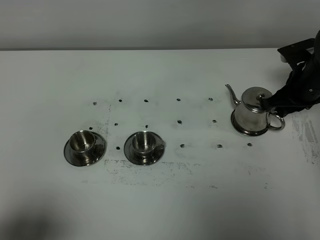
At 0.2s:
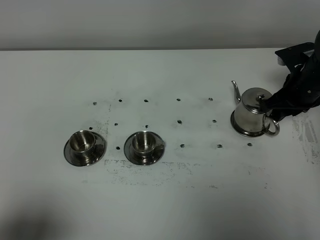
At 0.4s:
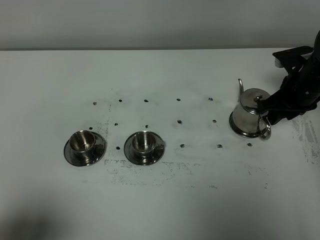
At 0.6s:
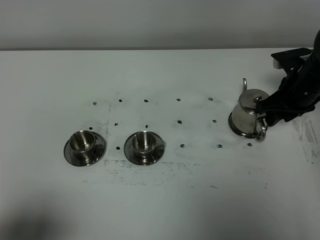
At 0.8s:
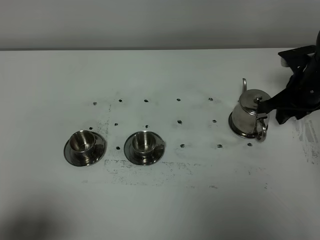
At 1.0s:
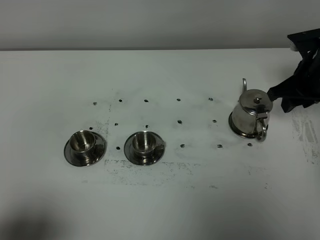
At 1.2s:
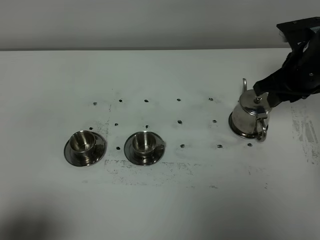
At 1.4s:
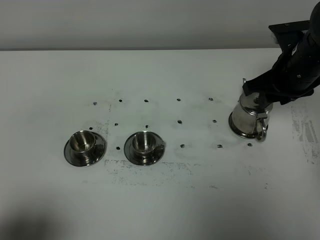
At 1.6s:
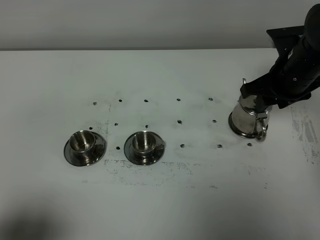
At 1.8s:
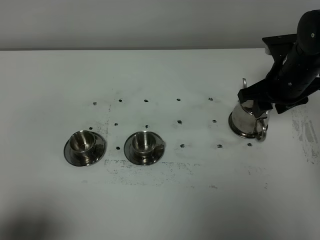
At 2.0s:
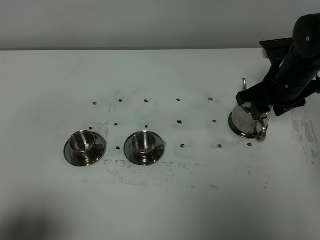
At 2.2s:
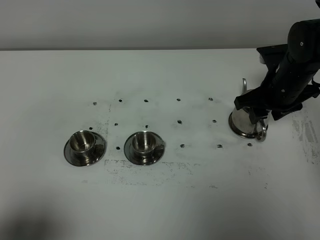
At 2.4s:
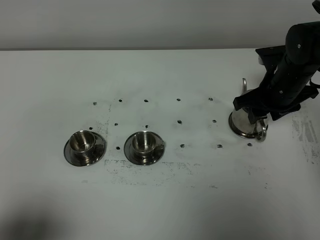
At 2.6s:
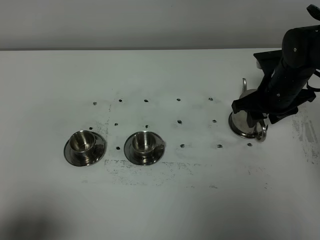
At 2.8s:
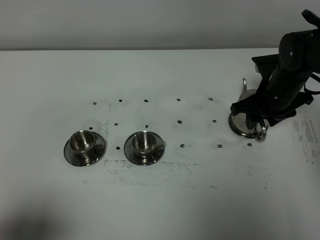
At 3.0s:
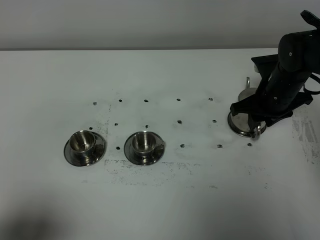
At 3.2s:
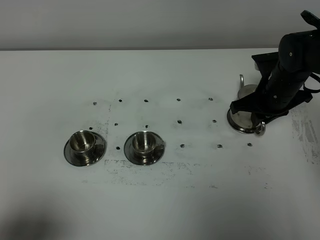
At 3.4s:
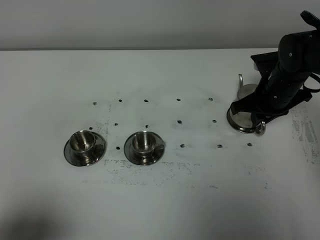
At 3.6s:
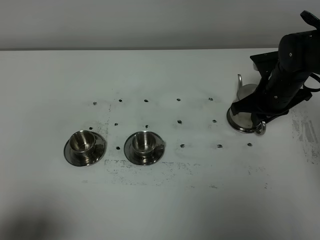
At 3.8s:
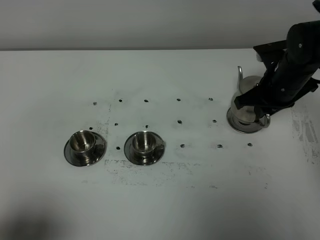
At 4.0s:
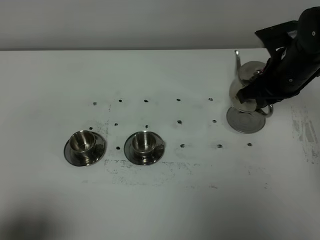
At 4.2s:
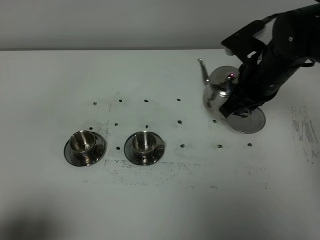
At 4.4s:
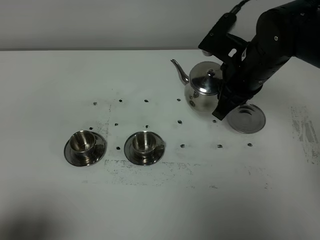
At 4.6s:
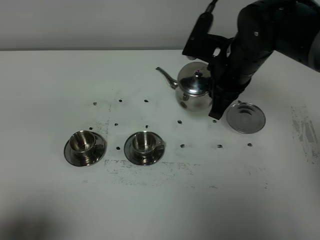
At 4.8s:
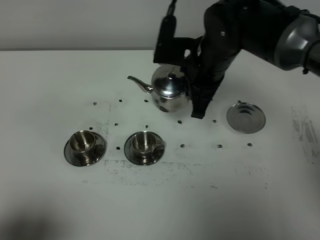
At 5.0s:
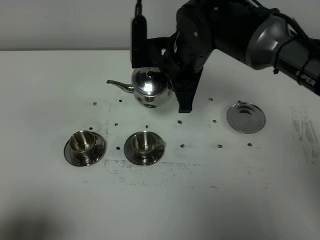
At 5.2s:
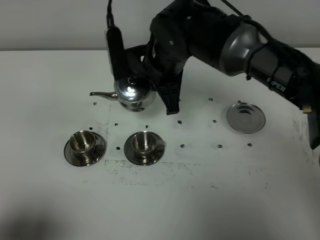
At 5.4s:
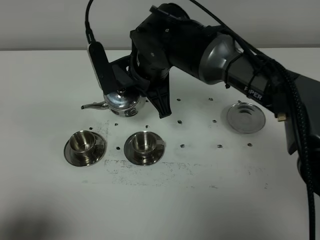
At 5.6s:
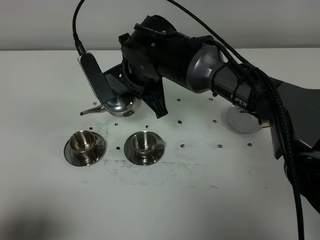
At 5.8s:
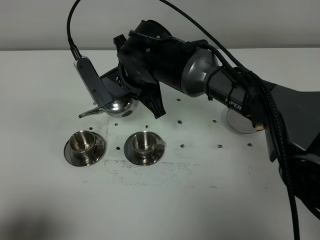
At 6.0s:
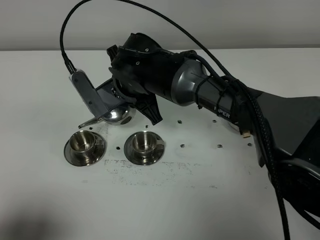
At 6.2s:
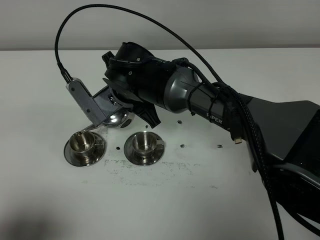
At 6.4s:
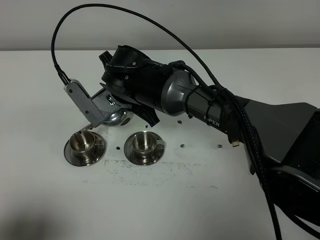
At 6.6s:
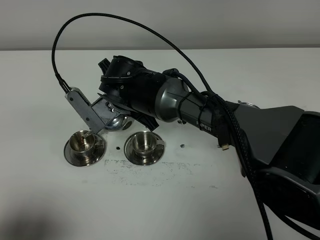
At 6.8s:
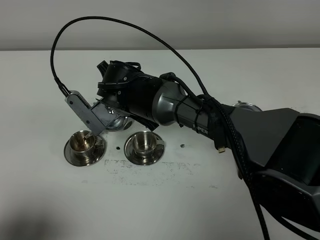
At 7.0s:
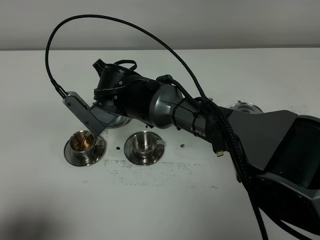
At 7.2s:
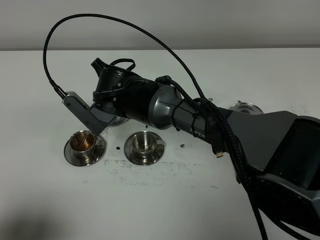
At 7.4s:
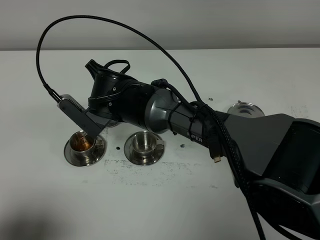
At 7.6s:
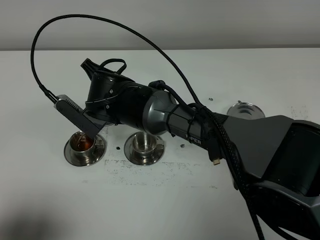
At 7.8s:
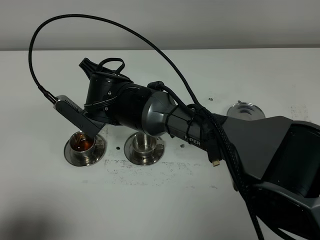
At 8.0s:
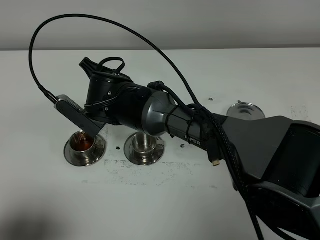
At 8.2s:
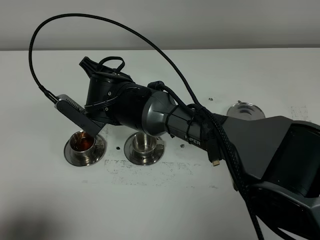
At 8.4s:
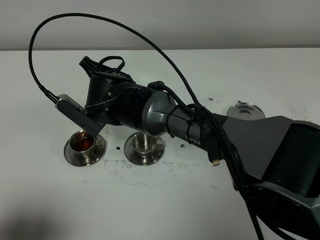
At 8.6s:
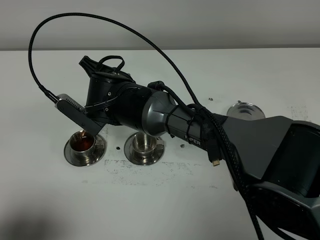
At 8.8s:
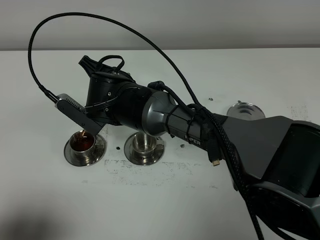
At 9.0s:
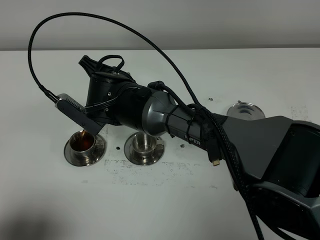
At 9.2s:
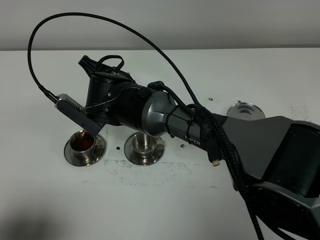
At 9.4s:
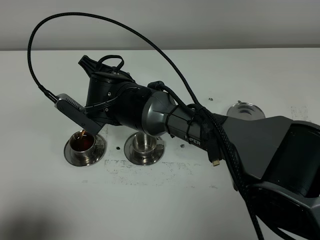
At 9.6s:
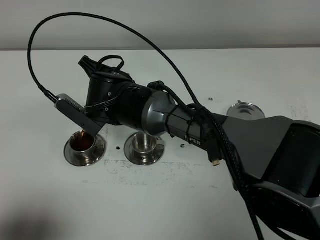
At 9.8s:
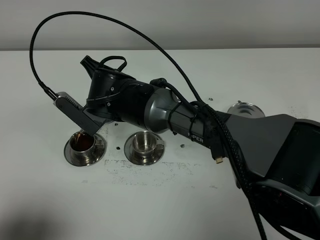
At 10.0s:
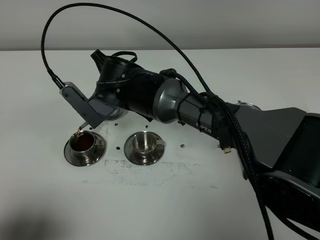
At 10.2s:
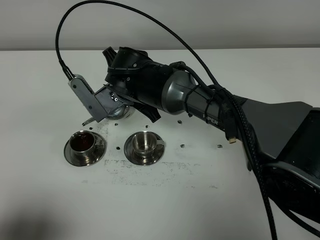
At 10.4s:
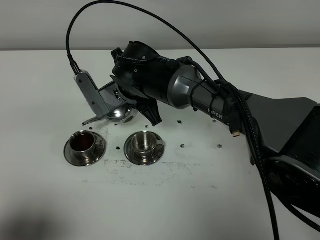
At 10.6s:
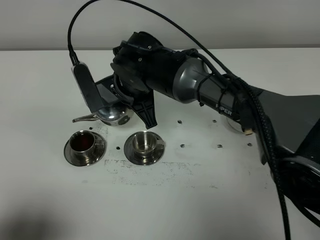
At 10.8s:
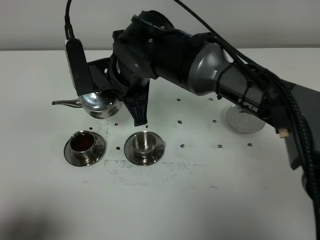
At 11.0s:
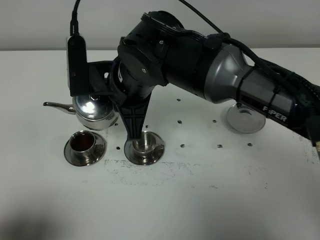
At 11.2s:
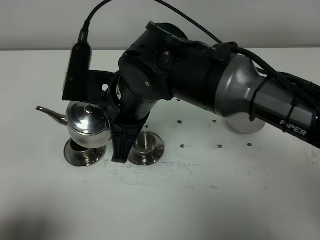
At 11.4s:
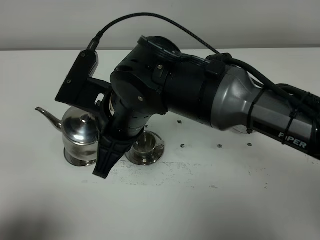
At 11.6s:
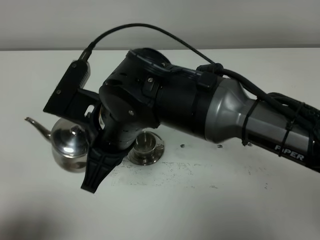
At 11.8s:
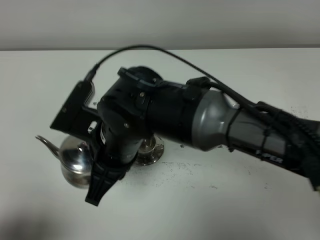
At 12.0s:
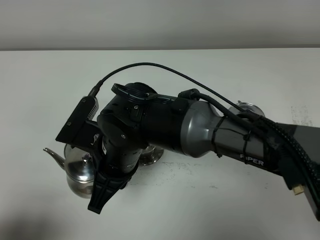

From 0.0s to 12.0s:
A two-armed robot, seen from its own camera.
Task of the whole recording: grasp the stainless steel teapot and pour the tea into the two stainless steel teacups one by one, put the stainless steel teapot back in its original place.
Step, from 0.0s to 3.6s: Pick up the teapot with the right gripper.
Step, from 3.8s to 10.2s: Pour tea into the teacup with the right gripper.
From 0.0s to 1.6s: The right gripper heads upward and to the left, covering some 10 cm.
From 1.6s to 3.0s: The right gripper is displaced downward by roughly 5 cm.
From 3.0s to 4.4s: The right gripper heads upward and to the left, covering about 10 cm, and closes its fingers.
From 4.4s to 6.0s: The right gripper moves to the left, some 20 cm.
From 7.6s to 9.0s: Both grippers stay about where they are.
From 10.4s to 12.0s: The right gripper goes some 15 cm backward.

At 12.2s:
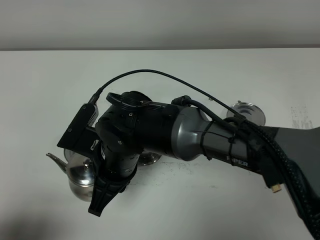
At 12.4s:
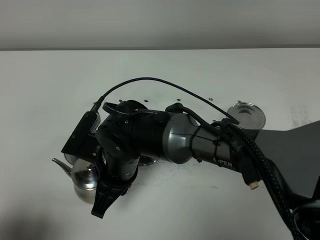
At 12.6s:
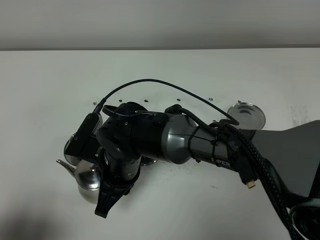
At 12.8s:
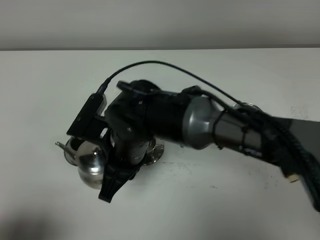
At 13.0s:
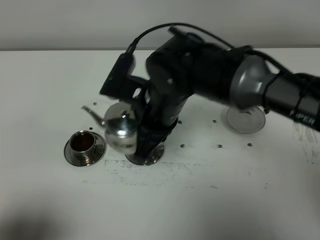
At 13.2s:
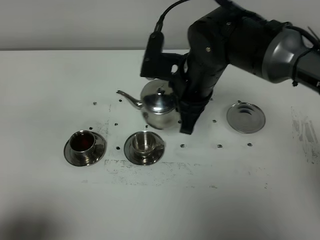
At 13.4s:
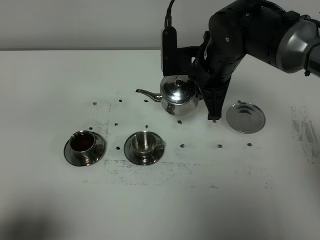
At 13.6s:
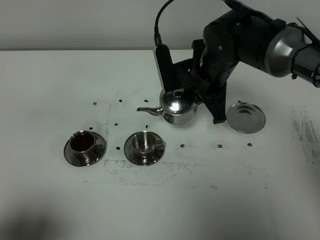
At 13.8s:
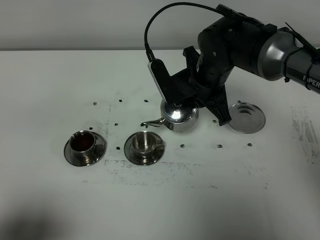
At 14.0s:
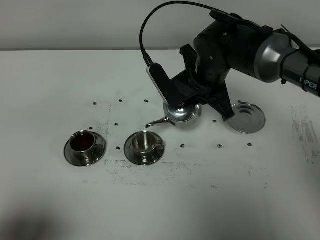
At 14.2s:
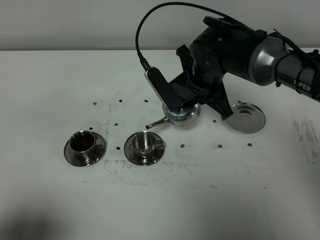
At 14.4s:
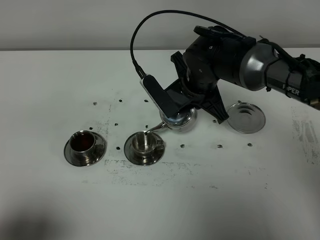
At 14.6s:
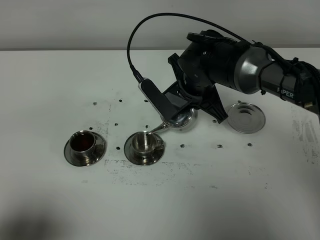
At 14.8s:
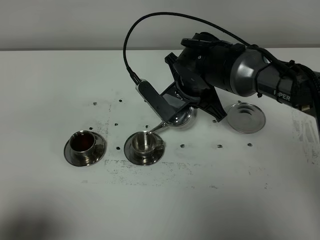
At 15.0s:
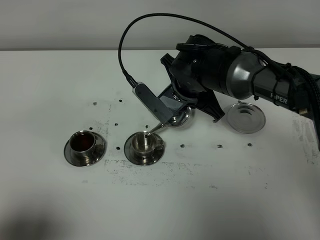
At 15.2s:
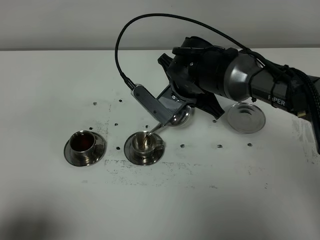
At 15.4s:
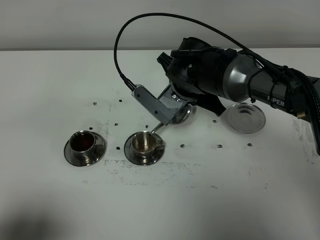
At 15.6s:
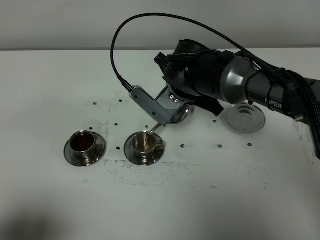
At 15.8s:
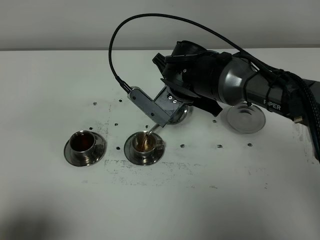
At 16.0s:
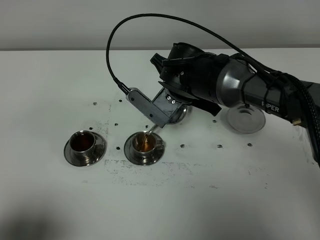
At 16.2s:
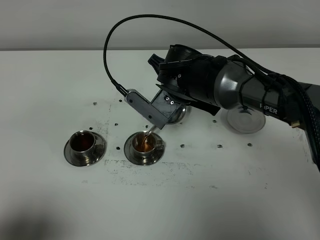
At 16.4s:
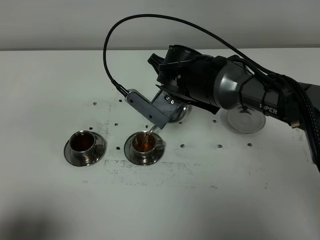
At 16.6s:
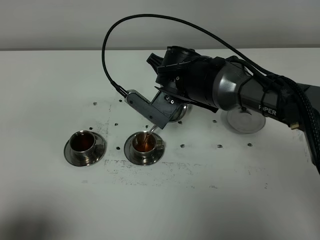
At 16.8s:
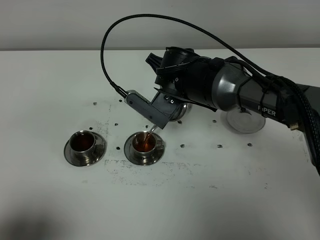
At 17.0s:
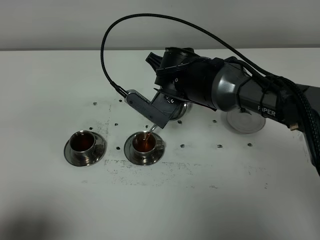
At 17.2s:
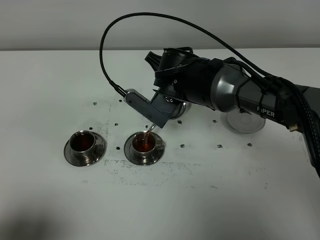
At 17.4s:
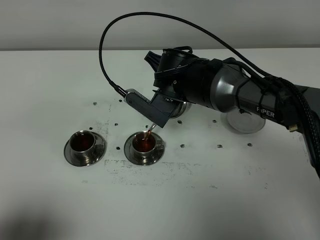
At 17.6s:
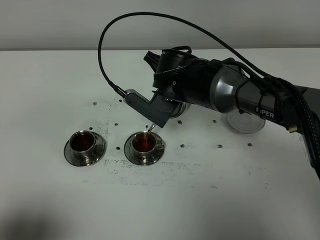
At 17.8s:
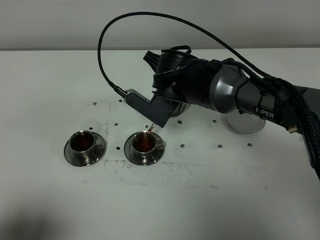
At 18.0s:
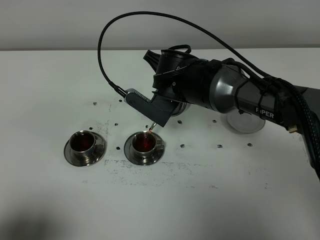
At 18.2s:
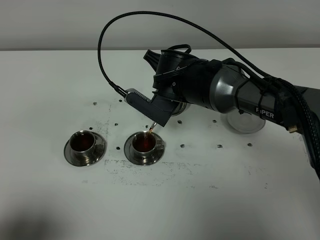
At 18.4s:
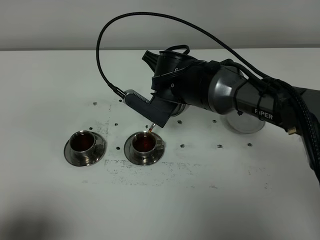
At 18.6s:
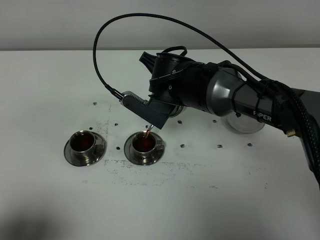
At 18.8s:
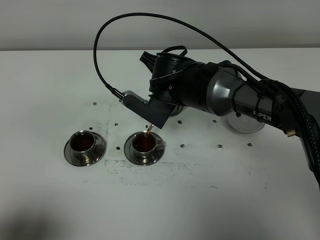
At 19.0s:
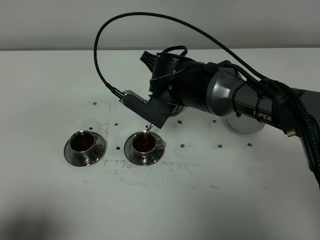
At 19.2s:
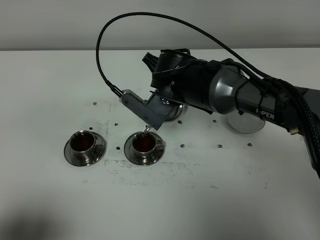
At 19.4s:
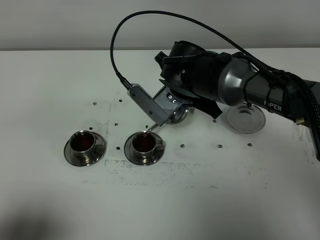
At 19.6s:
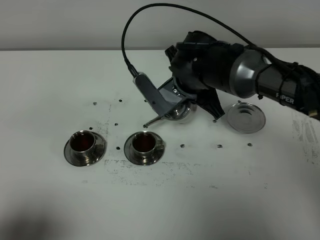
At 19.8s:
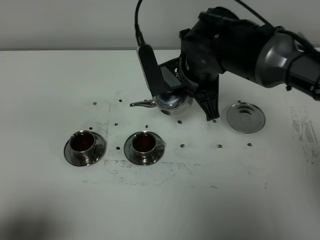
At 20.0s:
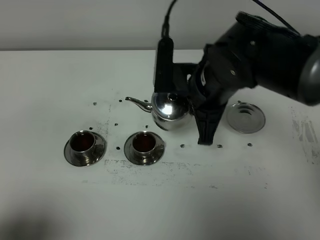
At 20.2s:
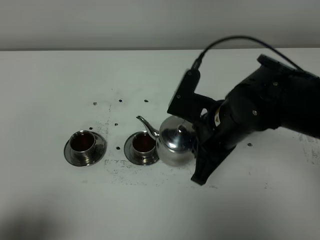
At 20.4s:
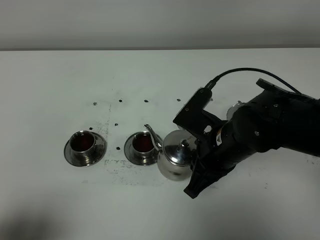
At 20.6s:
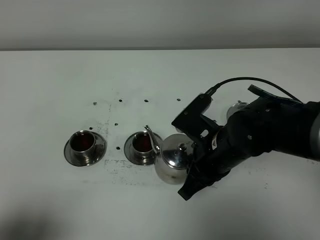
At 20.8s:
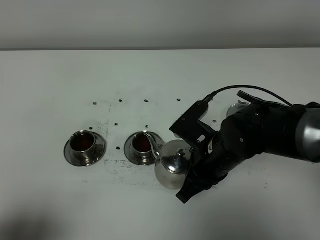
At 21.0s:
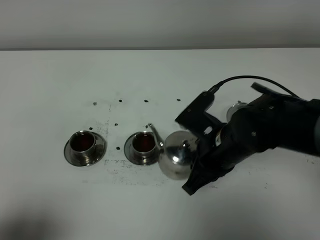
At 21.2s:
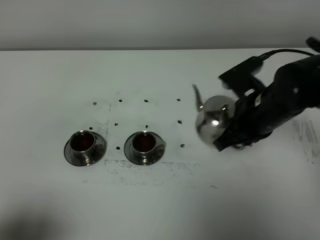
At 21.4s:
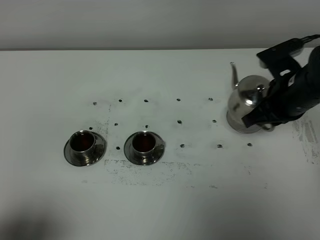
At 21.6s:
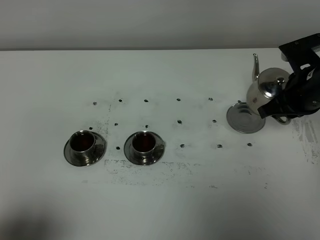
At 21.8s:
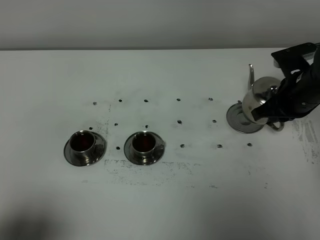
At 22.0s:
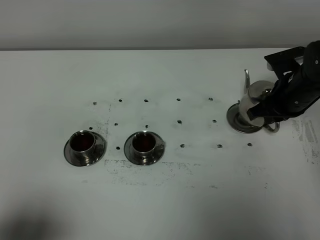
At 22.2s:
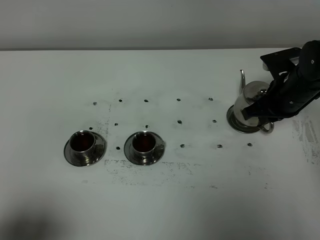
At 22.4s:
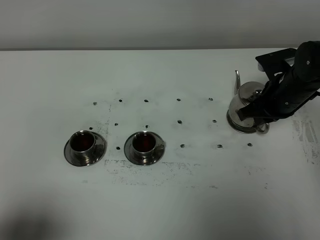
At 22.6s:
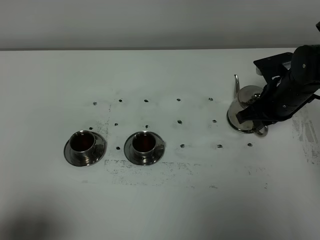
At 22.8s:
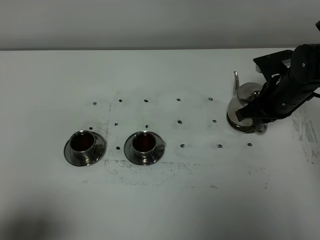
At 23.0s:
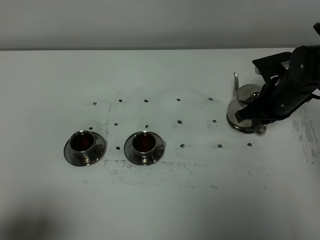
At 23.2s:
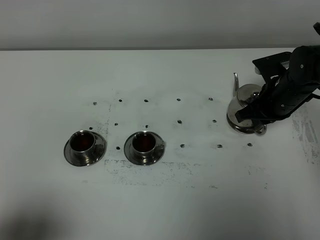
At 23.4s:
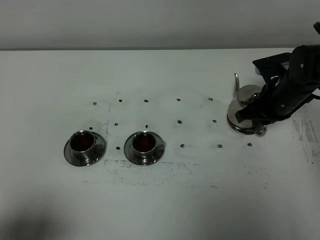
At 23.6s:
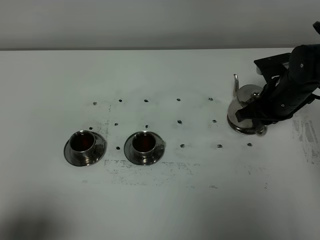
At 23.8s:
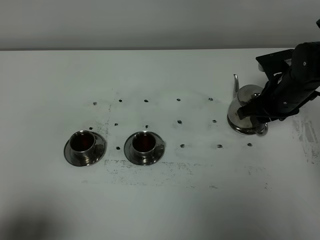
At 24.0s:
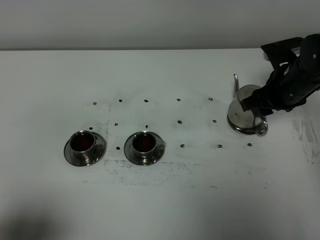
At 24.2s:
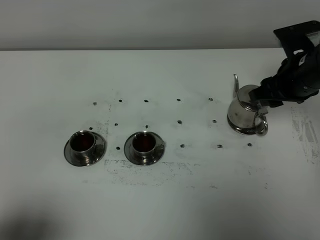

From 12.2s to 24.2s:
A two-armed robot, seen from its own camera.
Task of the whole recording: grasp the stainless steel teapot and pour the tea into the two stainless steel teacups one by one, put the stainless steel teapot back in its original place.
Step, from 12.2s to 19.6s: Pour tea into the teacup with the right gripper.
From 12.2s to 13.8s: The right gripper heads to the right and forward, covering about 20 cm.
From 15.2s to 18.2s: The grippers move only a little.
From 18.2s to 19.8s: The right gripper heads upward, covering roughly 5 cm.
From 19.8s to 21.2s: The right gripper moves to the right and backward, roughly 10 cm.
From 21.2s to 22.6s: The right gripper is displaced forward, to the right and downward by approximately 10 cm.
From 22.6s to 24.2s: The right gripper is displaced upward by approximately 10 cm, and opens.
